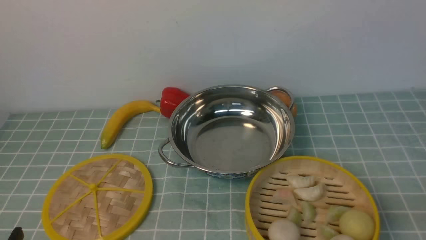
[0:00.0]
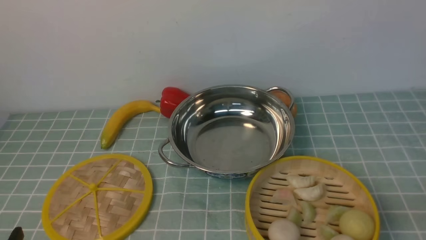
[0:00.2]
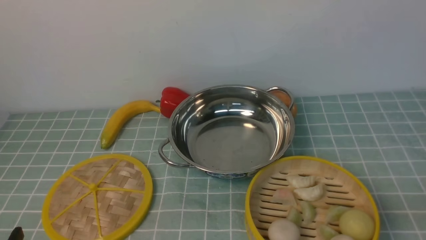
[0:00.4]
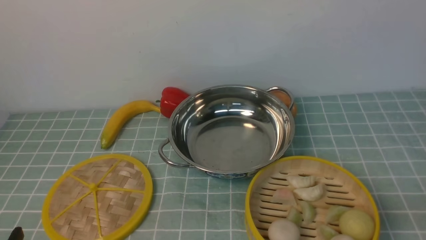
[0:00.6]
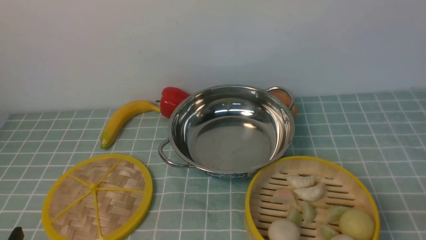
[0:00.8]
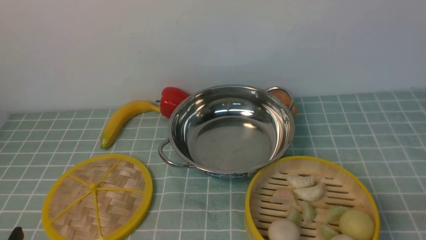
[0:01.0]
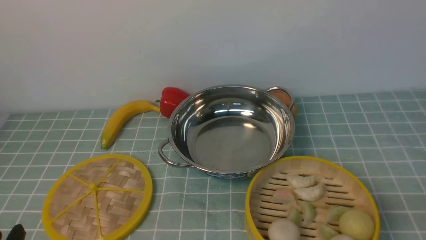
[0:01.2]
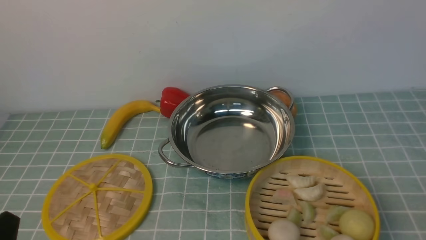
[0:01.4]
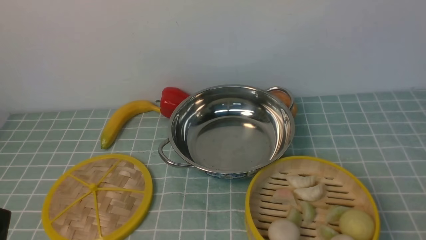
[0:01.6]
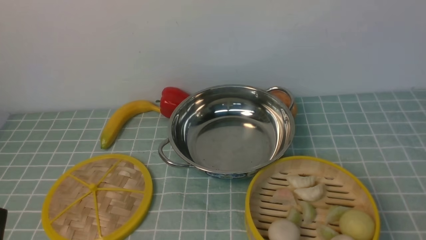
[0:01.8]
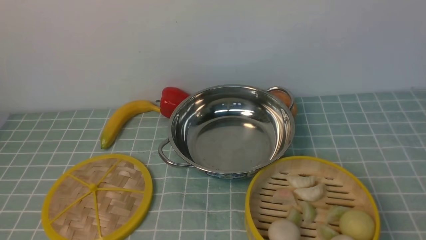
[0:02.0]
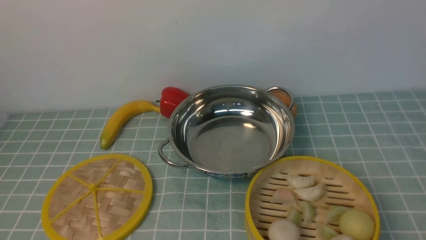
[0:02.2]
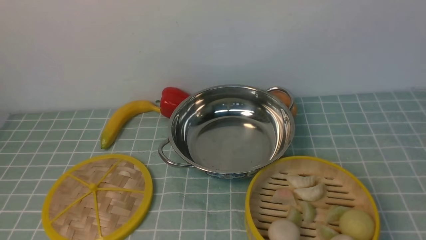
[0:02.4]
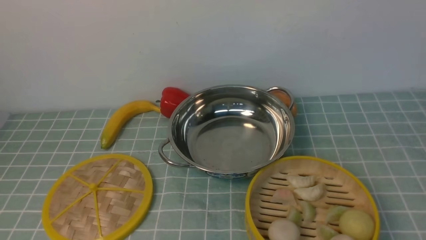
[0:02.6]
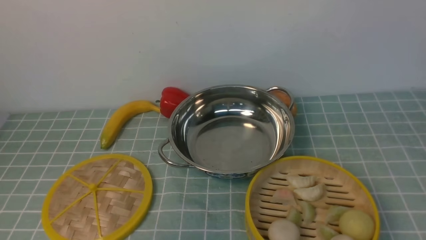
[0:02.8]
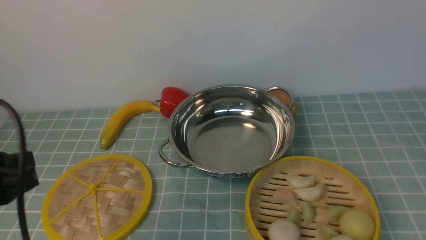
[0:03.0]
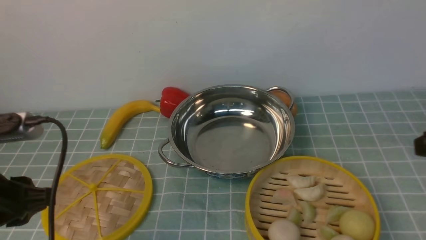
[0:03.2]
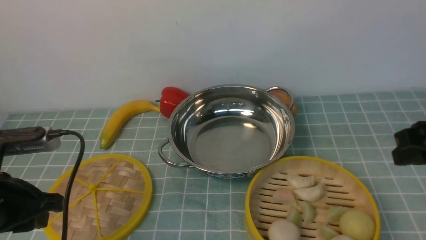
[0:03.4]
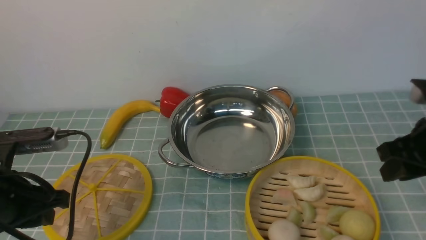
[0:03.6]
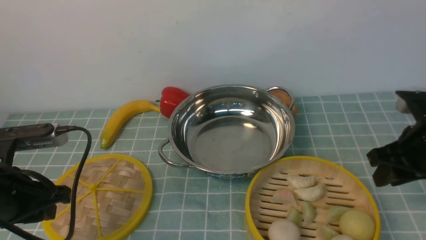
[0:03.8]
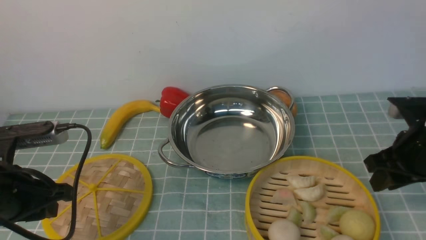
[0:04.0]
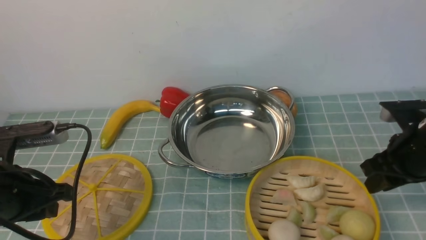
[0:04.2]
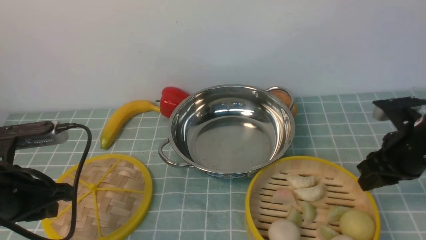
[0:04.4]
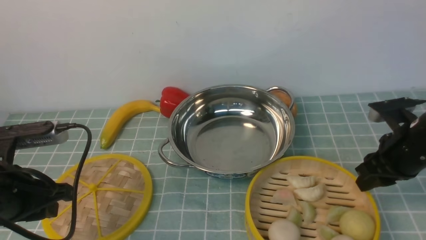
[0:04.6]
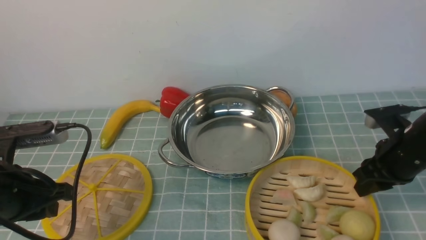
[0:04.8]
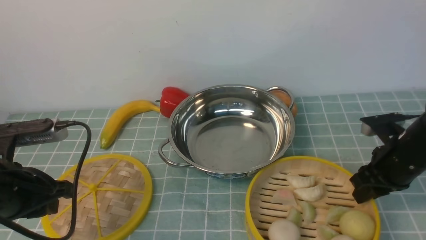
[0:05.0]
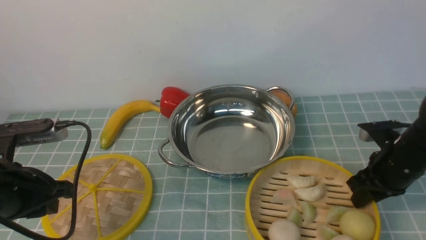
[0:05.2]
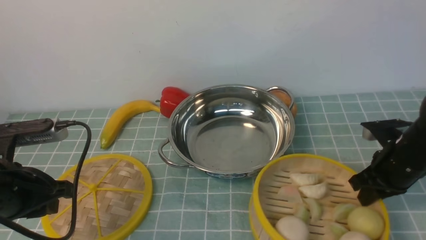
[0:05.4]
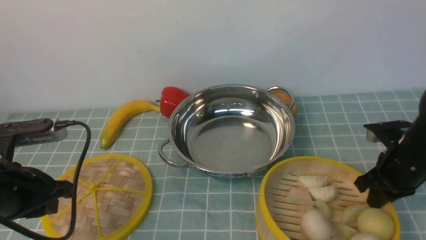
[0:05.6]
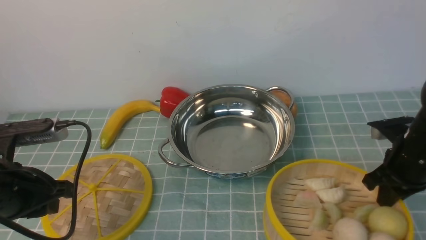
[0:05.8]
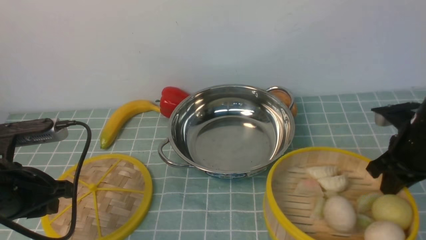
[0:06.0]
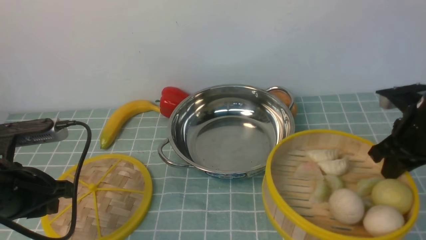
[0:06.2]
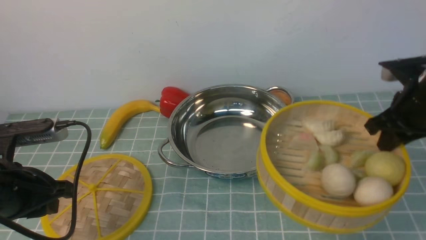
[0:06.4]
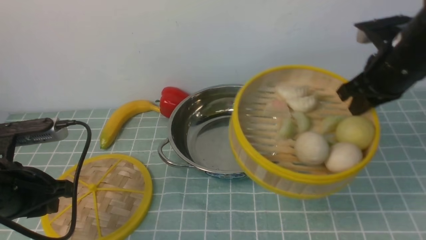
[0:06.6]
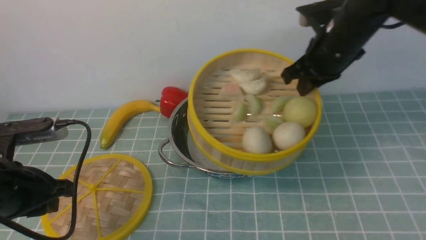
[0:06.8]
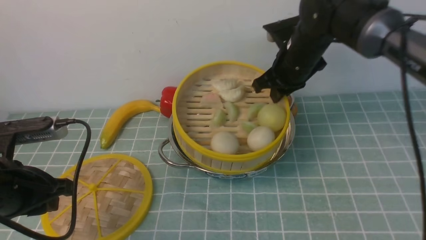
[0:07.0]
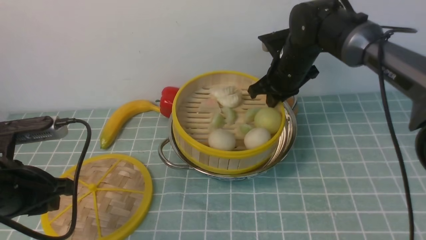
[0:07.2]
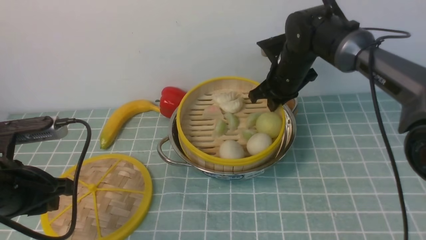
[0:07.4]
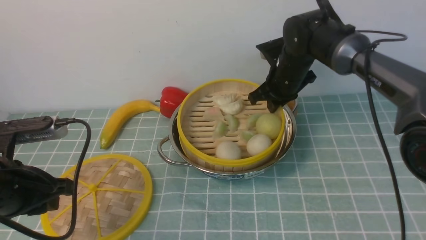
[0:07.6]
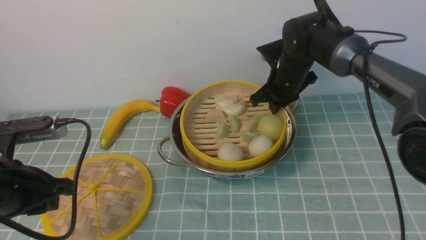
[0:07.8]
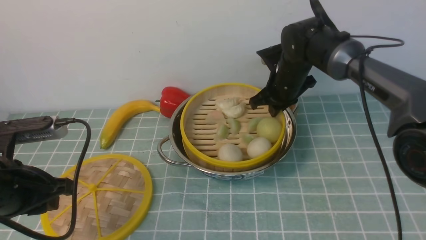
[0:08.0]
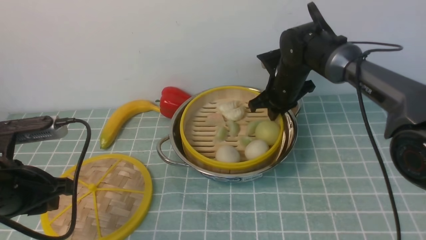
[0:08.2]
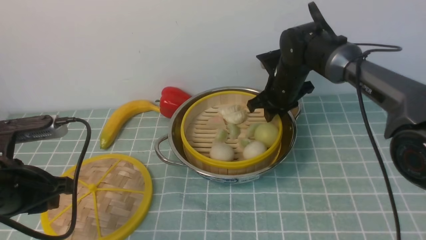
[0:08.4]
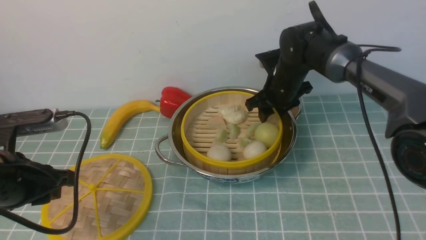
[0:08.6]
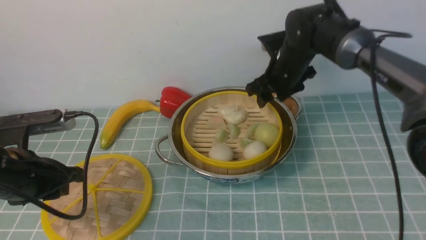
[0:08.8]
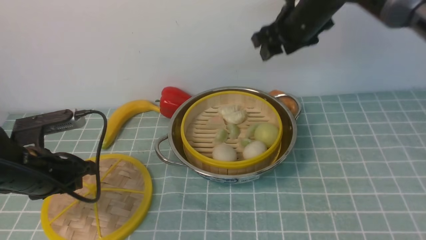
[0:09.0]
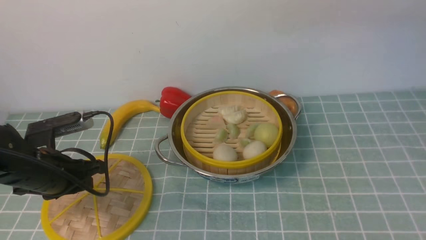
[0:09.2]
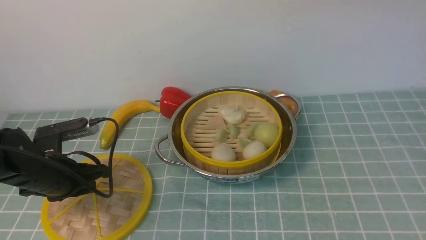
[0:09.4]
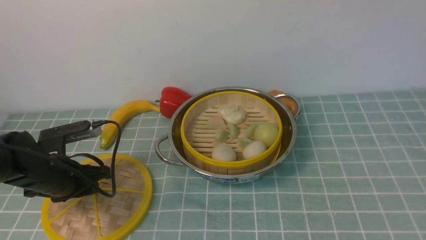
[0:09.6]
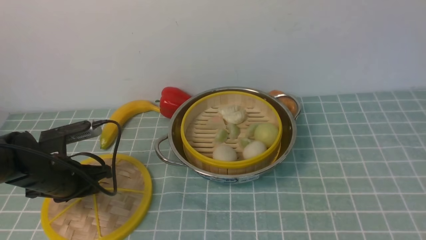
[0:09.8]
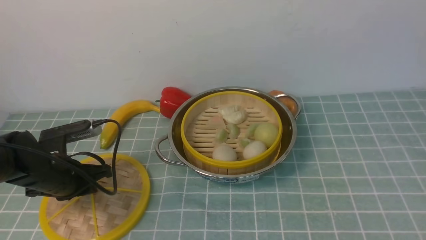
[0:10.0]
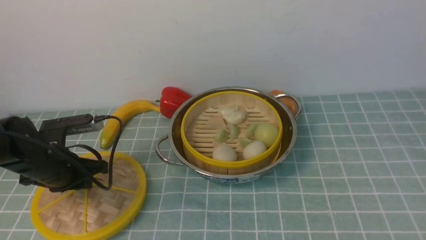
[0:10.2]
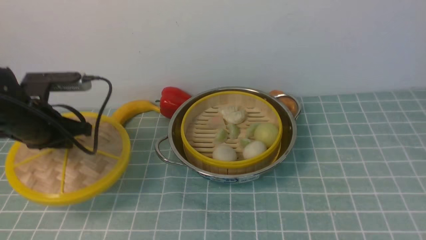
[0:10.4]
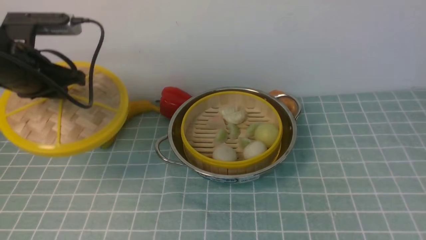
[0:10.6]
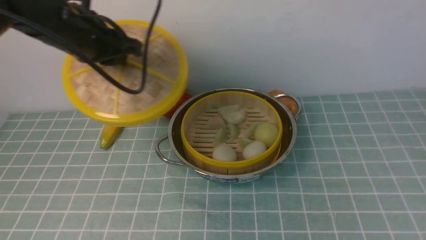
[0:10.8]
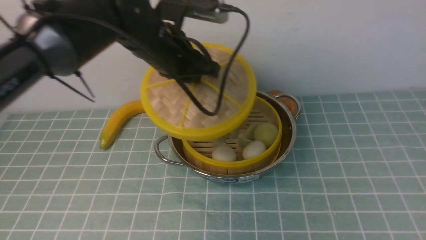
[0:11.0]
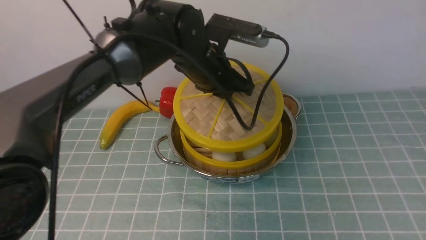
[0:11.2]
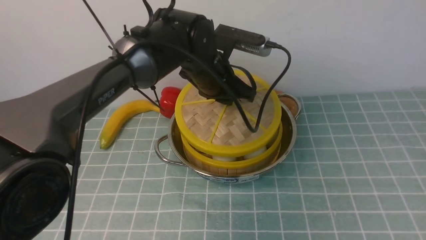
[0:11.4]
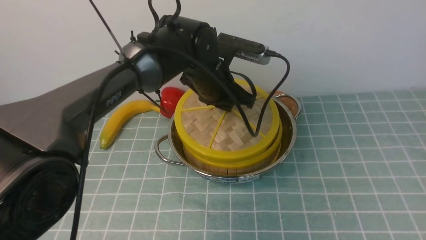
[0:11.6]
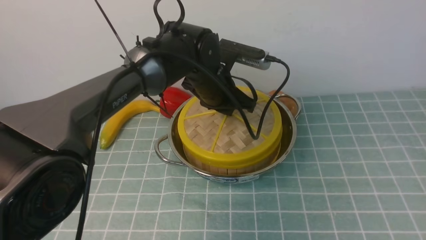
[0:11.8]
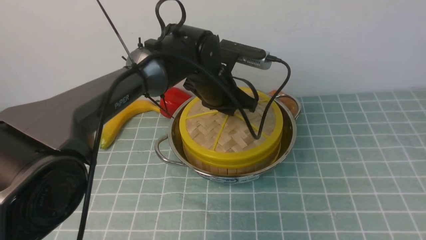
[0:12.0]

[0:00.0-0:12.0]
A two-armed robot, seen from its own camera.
Task of the whole recording: place the steamer in the pot on the blue tablecloth, and put the lid on the steamer.
Step, 0:00.0 to 0:06.0: use the right arm to lift the steamer closest to it.
Step, 0:06.2 to 0:08.8: use the right arm to put the steamer into the iron steamer pot in the middle.
Step, 0:09.0 to 0:10.4: use the left arm to lift the lid of the steamer.
0:01.6 to 0:03.0: The grippers both shift upward and forward by some 15 cm.
0:03.0 to 0:04.4: The right gripper goes about 20 cm forward and downward. The left gripper moves forward and downward, about 10 cm.
0:04.4 to 0:06.0: The right gripper closes up.
0:06.0 to 0:07.6: The right gripper shifts about 25 cm forward and to the left.
0:07.6 to 0:09.0: The right gripper travels upward by about 15 cm, and opens up. Meanwhile the left gripper shifts about 5 cm forward.
0:09.0 to 0:10.4: The right gripper goes some 40 cm backward and upward. The left gripper shifts roughly 5 cm forward.
0:10.4 to 0:12.0: The left gripper heads to the right, covering roughly 25 cm.

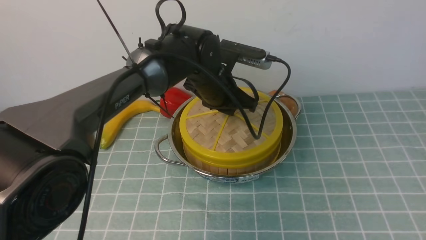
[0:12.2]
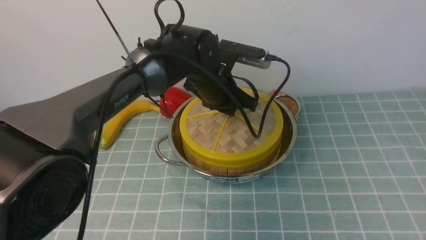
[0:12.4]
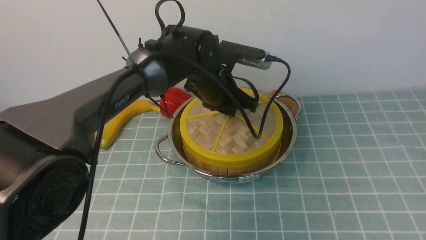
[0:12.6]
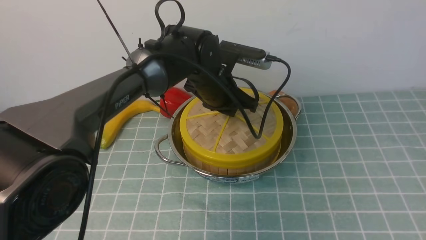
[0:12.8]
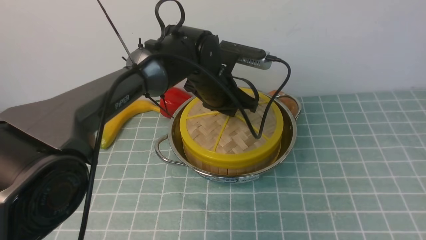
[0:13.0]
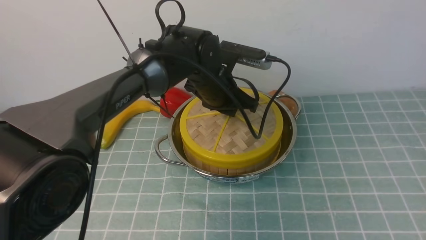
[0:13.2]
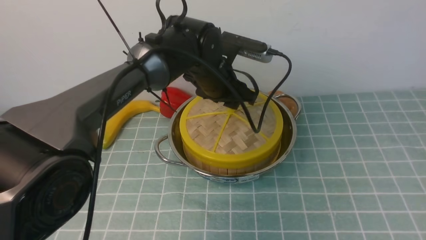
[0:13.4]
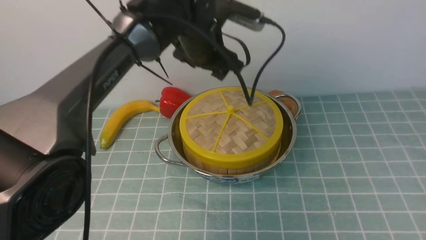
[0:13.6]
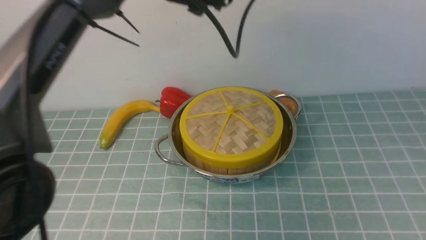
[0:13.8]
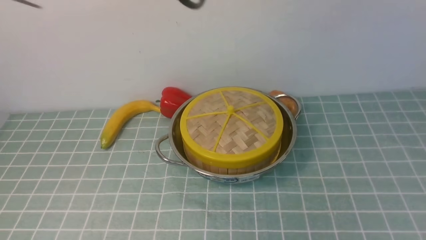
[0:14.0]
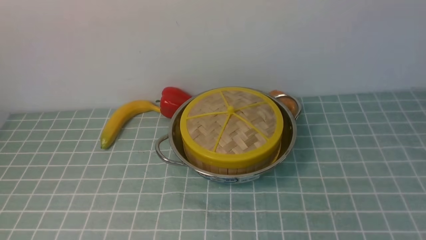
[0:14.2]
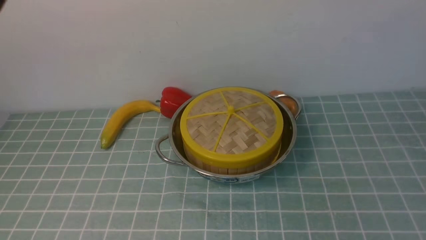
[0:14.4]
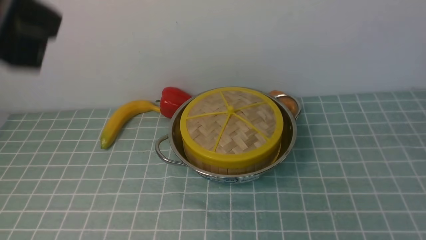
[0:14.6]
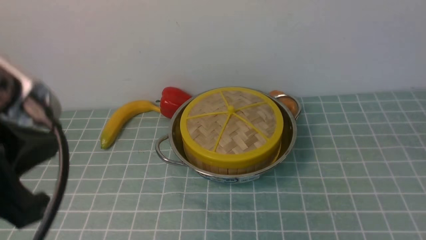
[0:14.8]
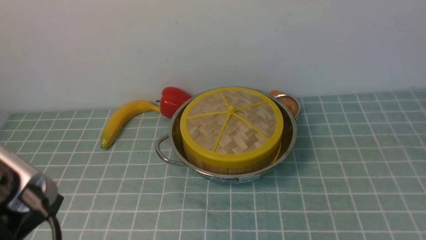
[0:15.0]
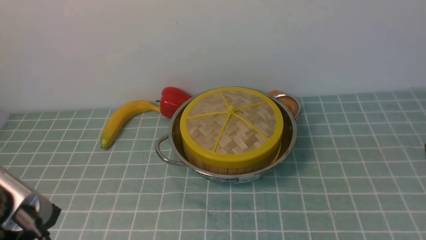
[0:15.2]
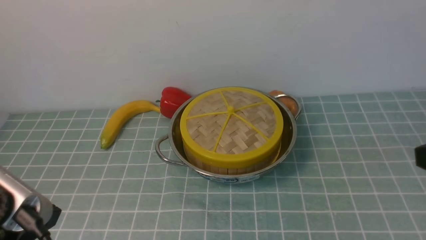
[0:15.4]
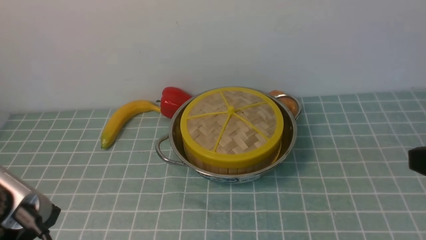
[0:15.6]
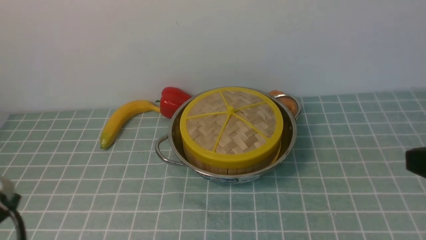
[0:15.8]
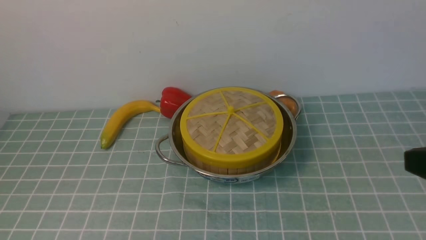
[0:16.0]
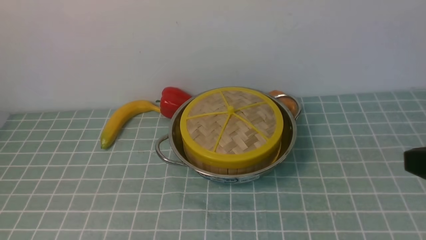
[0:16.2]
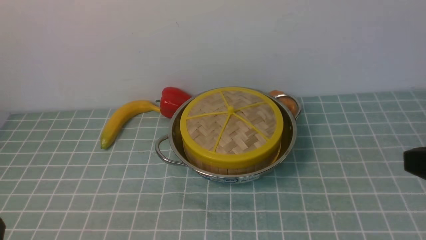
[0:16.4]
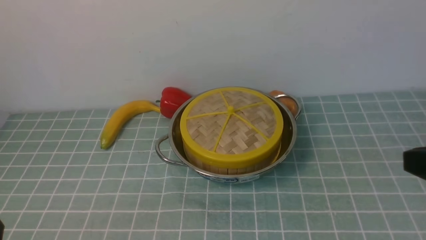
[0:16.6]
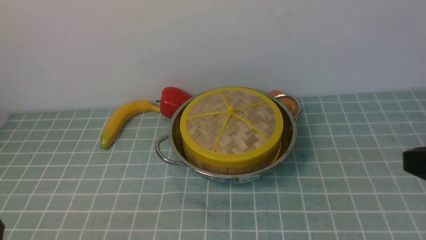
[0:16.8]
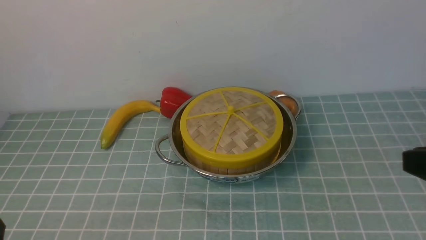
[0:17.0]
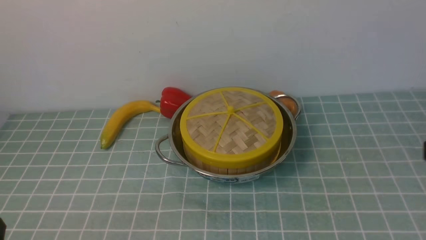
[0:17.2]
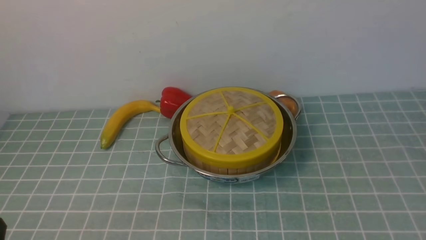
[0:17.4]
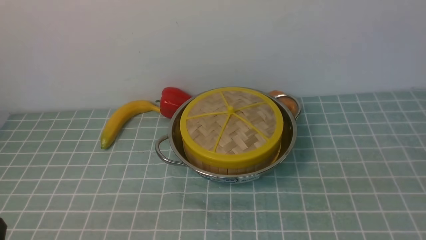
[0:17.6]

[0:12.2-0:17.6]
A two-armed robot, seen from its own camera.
Task of the whole recording: place the steamer in the pot on the blue tablecloth, and put the lid on the steamer.
Step, 0:12.2 to 0:14.0: use the left arm to place the steamer lid on the steamer.
0:12.2 to 0:13.6: The left gripper goes about 10 cm upward, and opens its fingers.
0:13.6 to 0:15.0: The right gripper travels downward and forward by some 20 cm, and closes, while the left gripper heads backward and to the left, covering approximately 35 cm, and closes.
0:15.0 to 0:16.2: The left gripper heads downward, covering roughly 10 cm.
